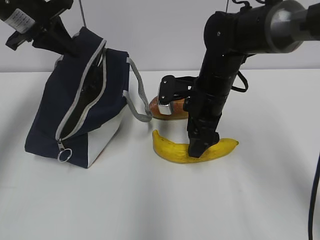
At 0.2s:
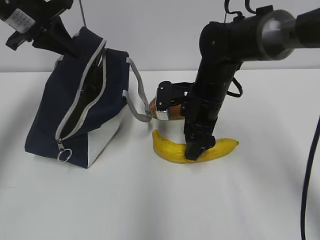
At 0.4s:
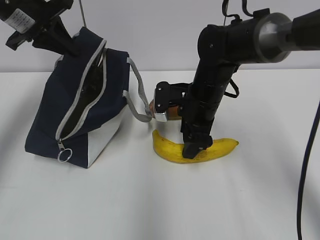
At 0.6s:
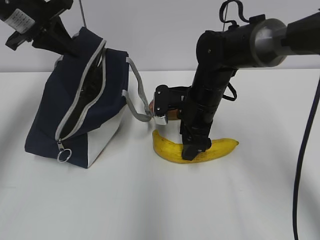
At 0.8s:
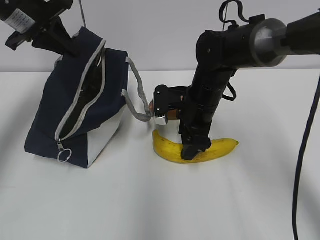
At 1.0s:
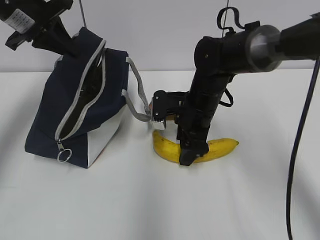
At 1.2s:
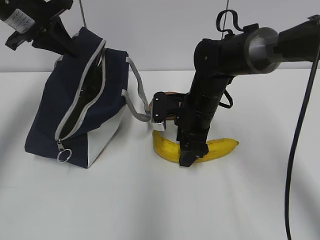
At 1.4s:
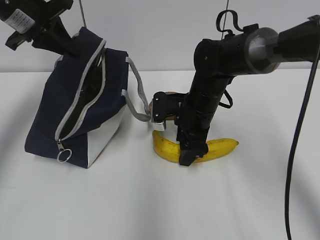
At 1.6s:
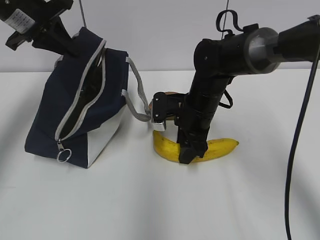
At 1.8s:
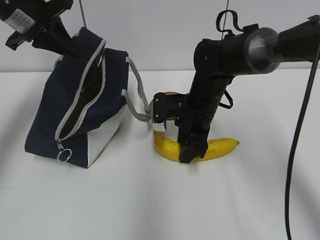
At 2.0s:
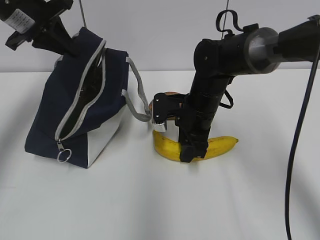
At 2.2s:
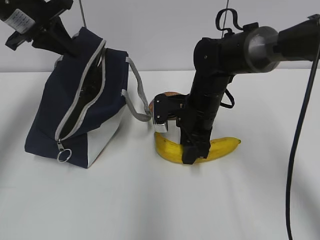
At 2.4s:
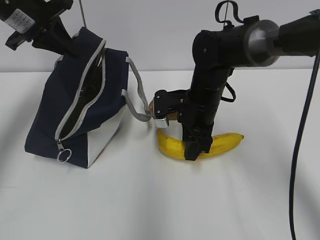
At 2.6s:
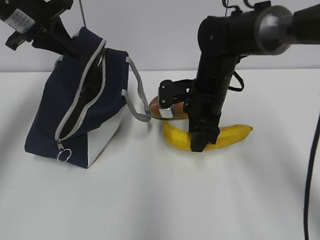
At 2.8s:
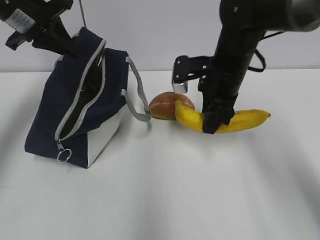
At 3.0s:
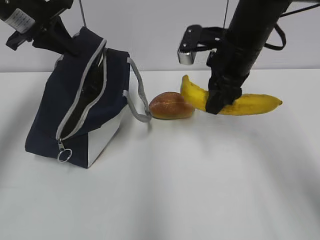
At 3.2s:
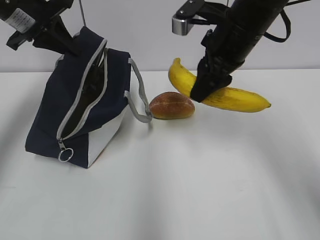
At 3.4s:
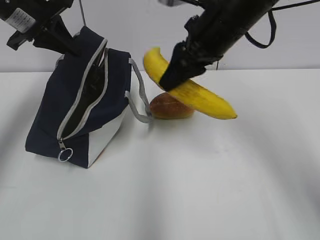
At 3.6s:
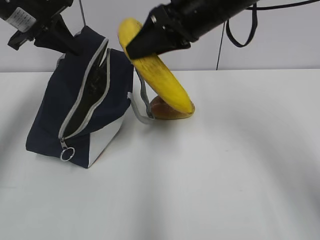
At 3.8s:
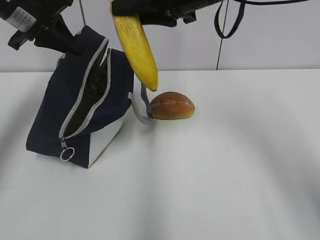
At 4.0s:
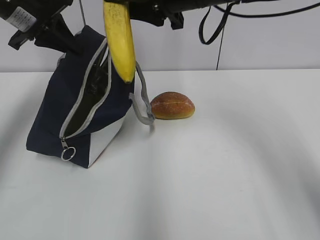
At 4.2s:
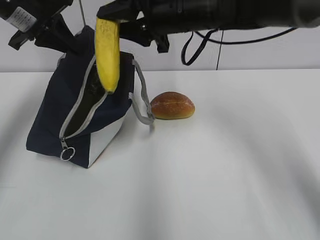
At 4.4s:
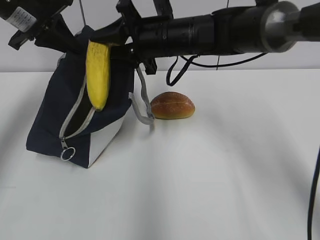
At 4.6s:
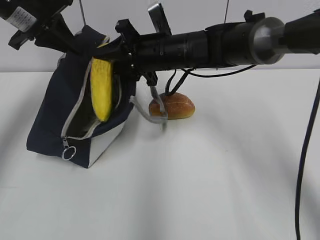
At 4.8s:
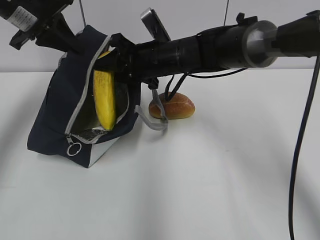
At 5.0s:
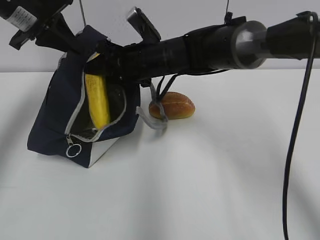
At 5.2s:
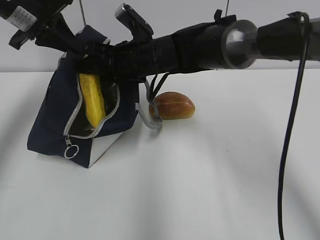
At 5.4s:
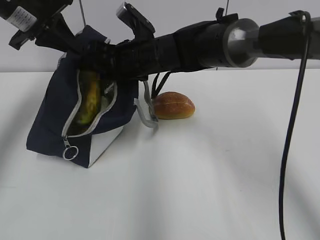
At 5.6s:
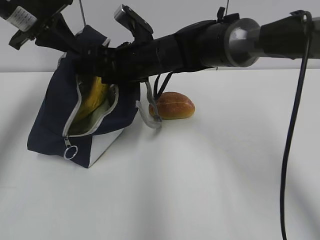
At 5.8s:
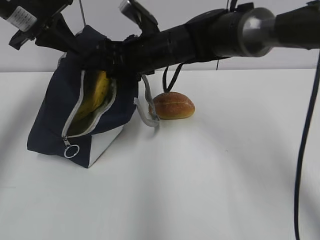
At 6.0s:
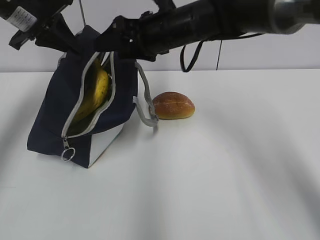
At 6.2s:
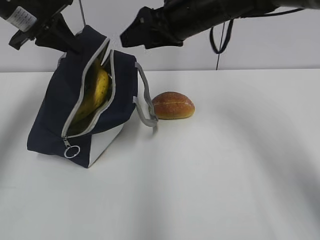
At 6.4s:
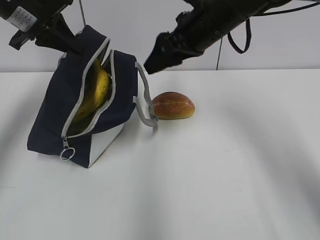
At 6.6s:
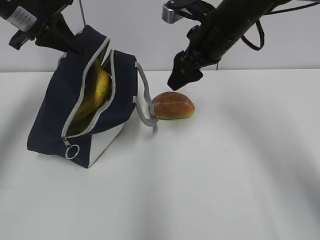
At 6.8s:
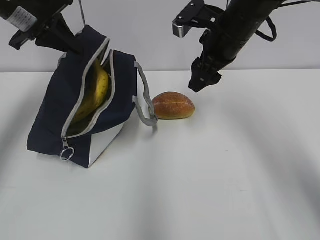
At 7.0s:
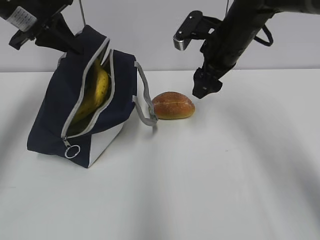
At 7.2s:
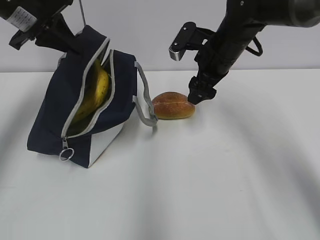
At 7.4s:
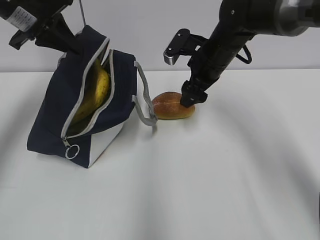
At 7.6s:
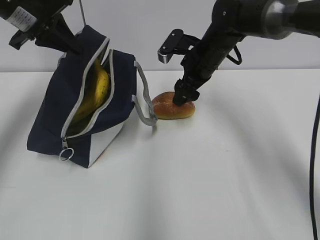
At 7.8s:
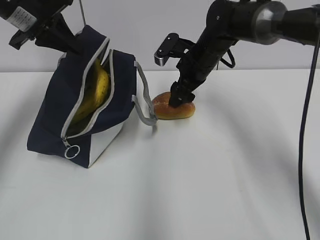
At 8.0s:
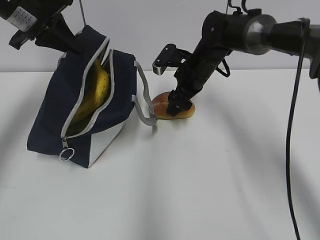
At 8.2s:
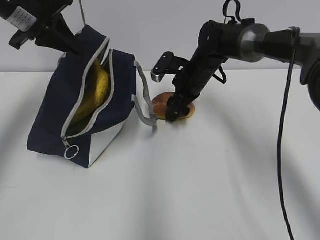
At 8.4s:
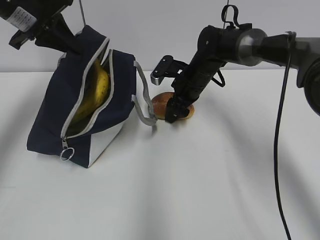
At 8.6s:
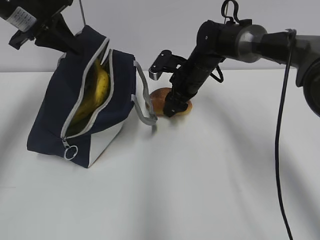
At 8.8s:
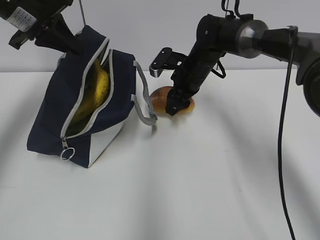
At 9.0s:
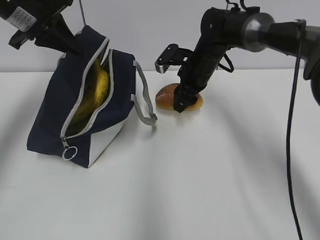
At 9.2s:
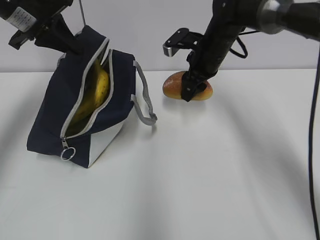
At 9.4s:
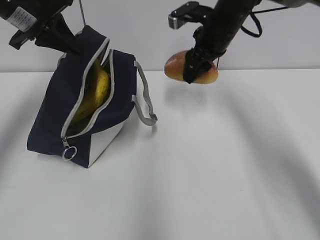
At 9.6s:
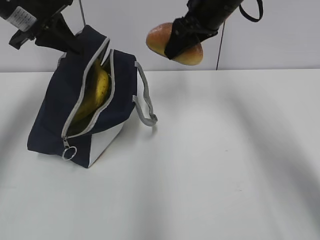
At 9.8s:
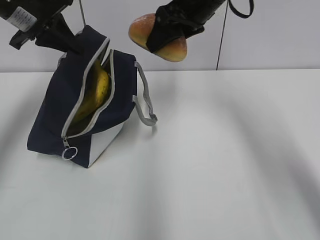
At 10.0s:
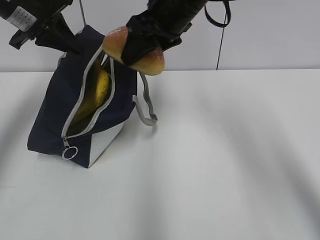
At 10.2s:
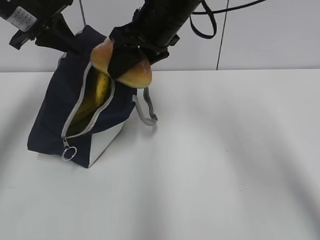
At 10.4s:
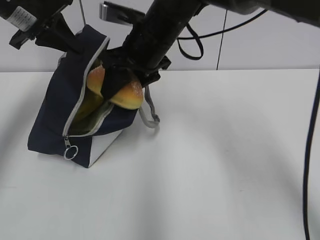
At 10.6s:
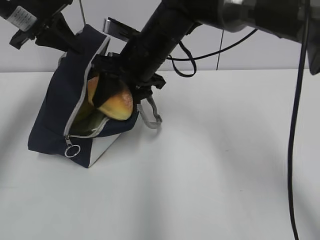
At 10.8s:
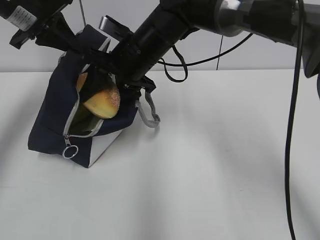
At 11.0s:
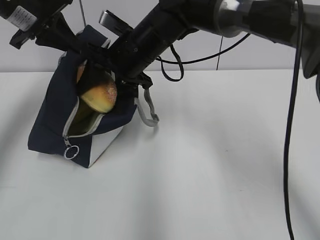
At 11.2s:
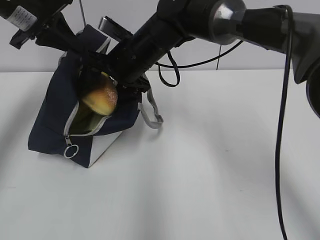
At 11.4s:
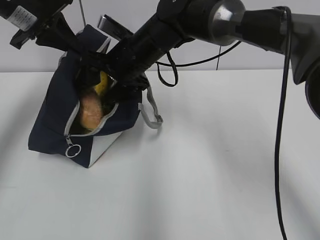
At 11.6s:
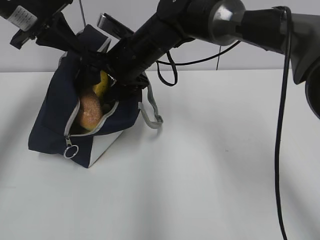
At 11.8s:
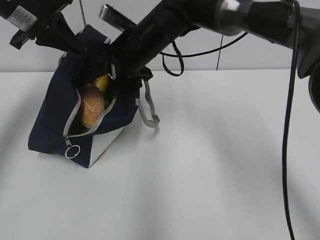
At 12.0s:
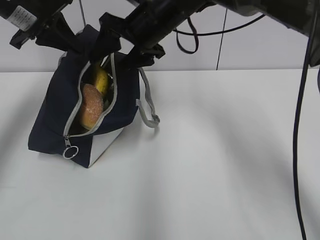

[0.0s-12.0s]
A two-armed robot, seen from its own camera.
Step, 0.0s to 2.0s: Grab the banana with your right hand.
Step, 2.2s to 5.6s: Place it into the bag with your right hand.
Step, 5.8s to 8.2s: Grab the bread with your right hand.
0.0s to 1.6s: The grippers move only a little.
1.6s to 3.0s: The right gripper shifts approximately 15 cm upward.
3.0s to 4.4s: The right gripper travels to the left by about 10 cm.
4.4s to 6.0s: The right gripper opens.
6.0s to 7.6s: The right gripper is displaced downward and to the right by approximately 10 cm.
9.0s to 10.4s: The right gripper moves to the left, upward and backward, approximately 15 cm.

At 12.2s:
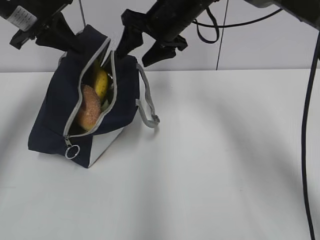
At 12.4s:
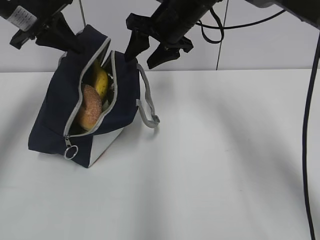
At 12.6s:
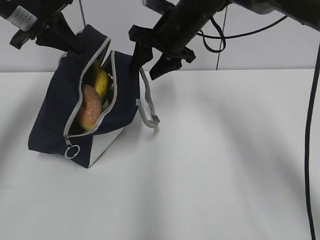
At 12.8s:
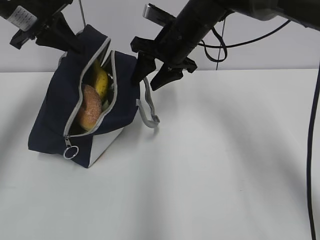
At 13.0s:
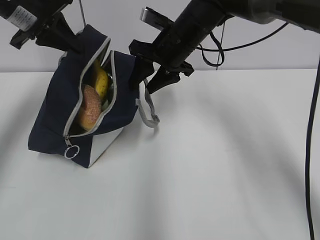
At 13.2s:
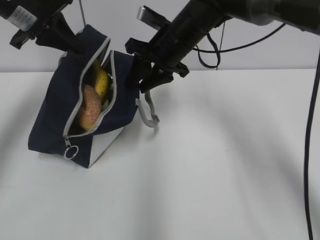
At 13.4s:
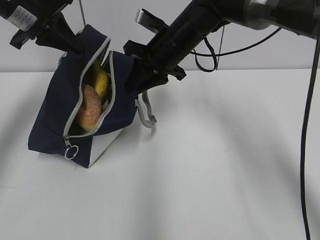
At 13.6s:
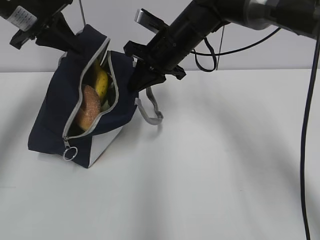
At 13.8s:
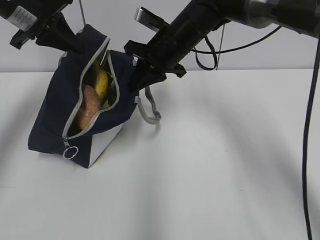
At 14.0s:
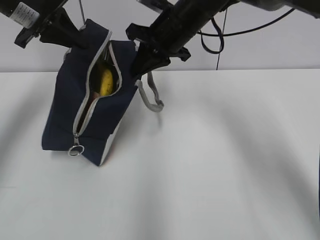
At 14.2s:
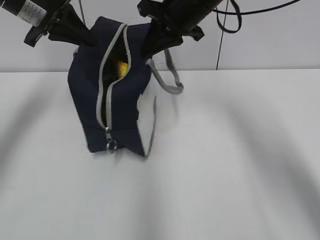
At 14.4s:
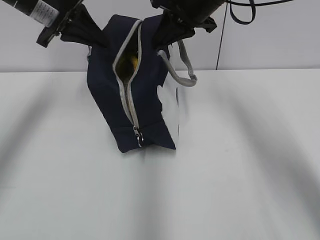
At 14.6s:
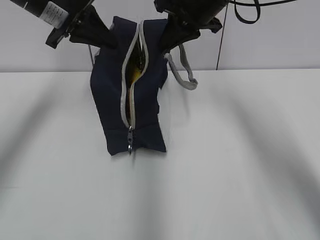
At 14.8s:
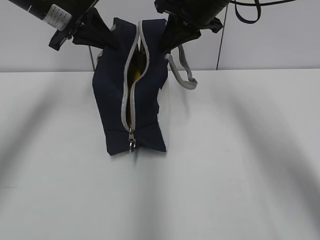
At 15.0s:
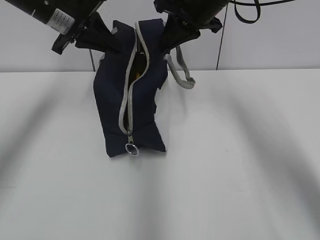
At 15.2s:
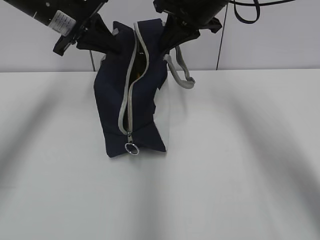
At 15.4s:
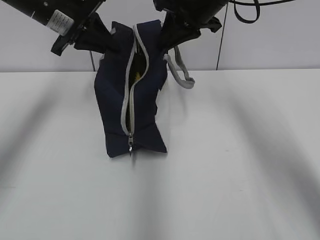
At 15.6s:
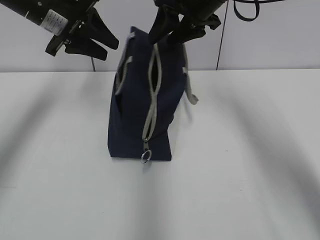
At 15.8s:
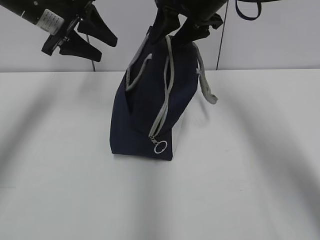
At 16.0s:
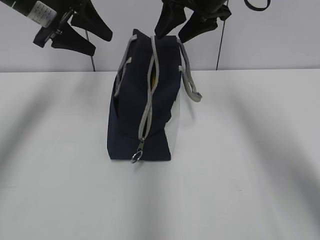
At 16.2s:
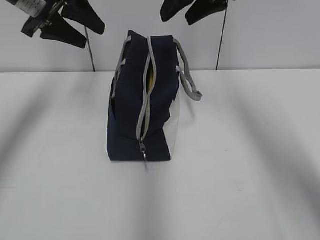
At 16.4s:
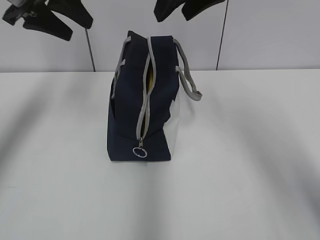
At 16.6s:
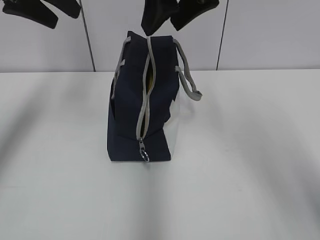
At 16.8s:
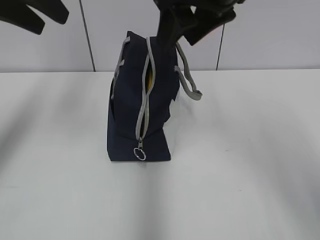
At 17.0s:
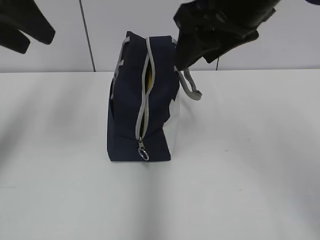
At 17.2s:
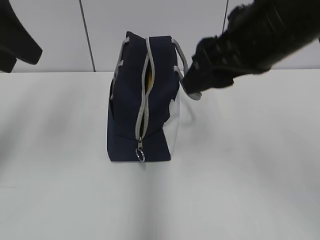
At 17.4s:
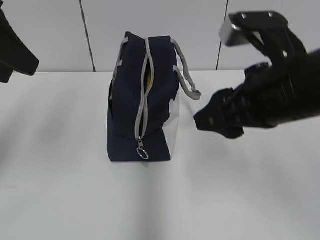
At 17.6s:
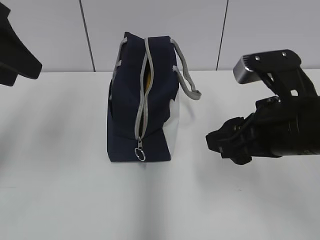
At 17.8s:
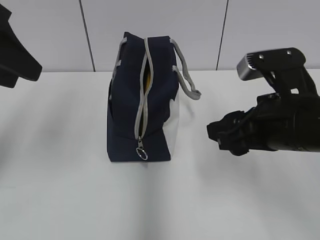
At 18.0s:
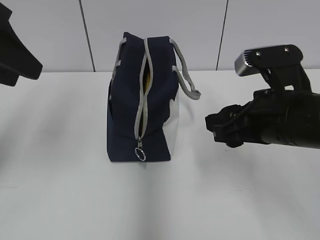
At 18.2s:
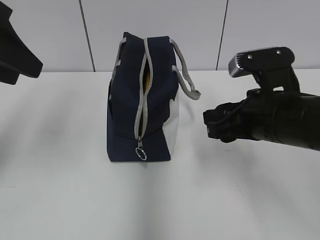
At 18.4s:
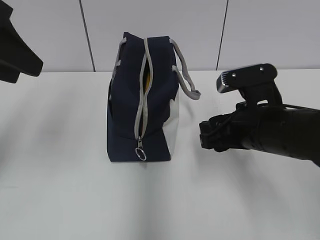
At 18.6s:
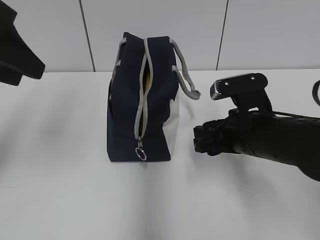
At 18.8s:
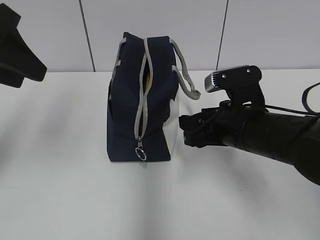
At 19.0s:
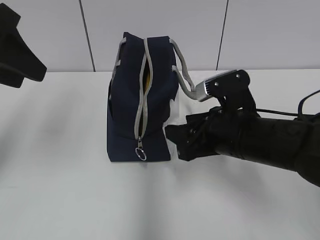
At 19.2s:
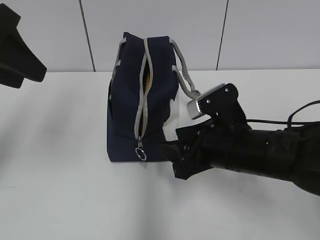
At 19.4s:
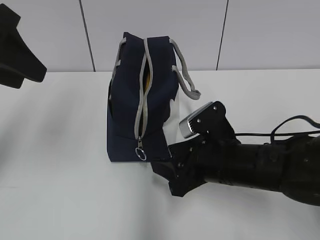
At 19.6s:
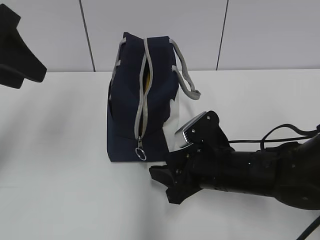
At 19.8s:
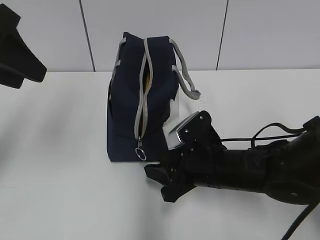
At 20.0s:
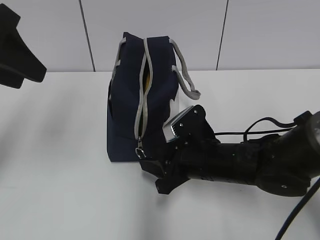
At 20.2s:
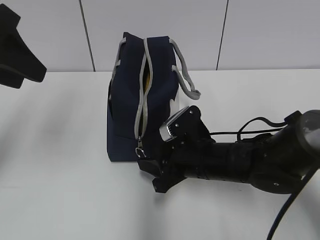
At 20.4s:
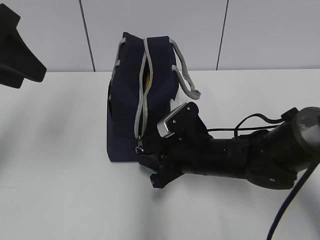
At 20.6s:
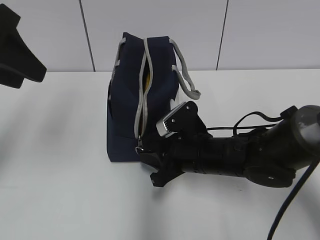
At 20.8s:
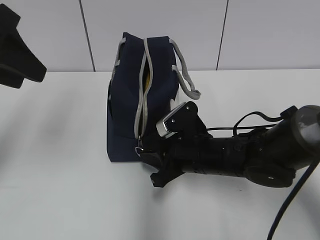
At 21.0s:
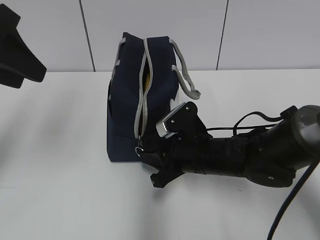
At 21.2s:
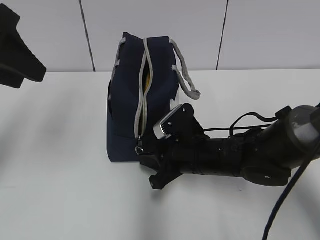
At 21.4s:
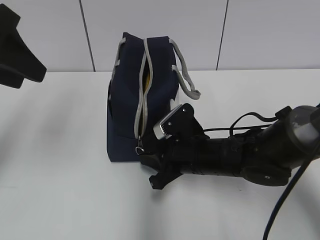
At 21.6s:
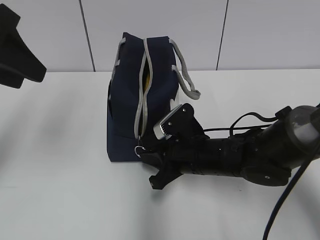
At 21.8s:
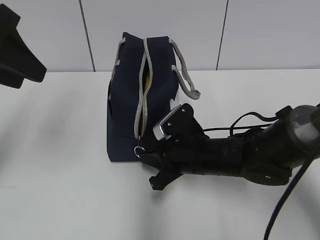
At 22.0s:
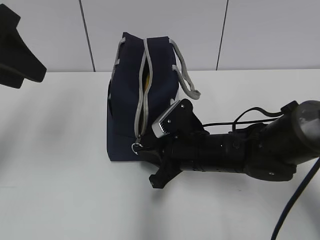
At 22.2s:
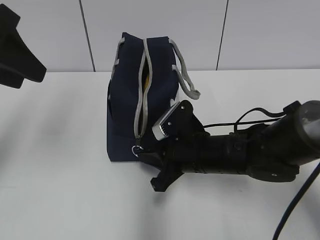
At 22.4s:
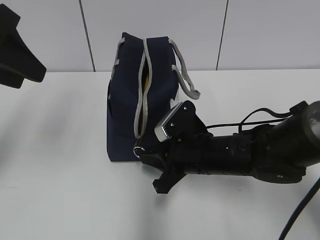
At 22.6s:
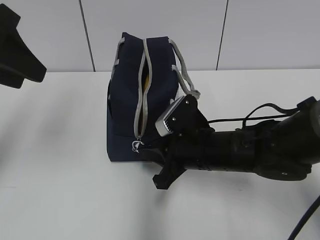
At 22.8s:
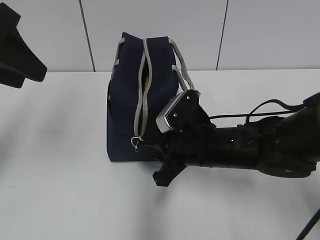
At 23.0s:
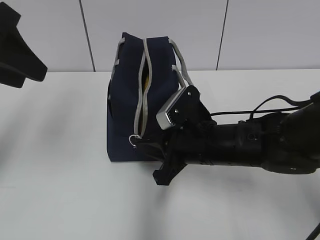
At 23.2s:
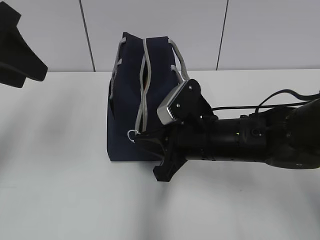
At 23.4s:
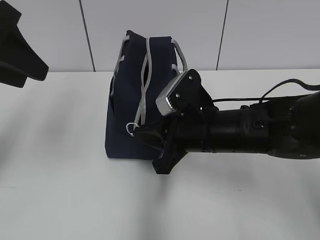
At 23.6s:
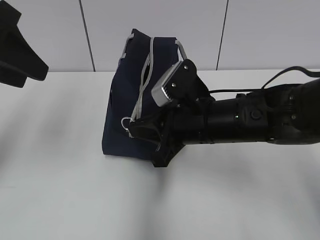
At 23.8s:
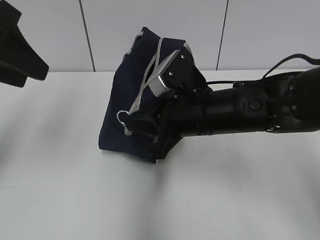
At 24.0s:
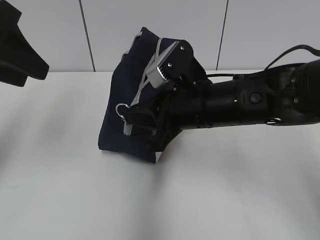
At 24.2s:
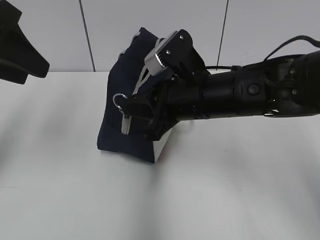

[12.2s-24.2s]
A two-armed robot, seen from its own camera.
Step, 13.8s to 15.4s: Move the lunch bag to the right.
12.2s to 13.8s: The right gripper closes its fingers.
13.8s to 15.2s: The left gripper goes approximately 5 cm to the right; the right gripper goes some 10 cm upward and to the right.
15.2s to 16.6s: The right gripper is displaced backward and upward by roughly 10 cm, and opens its fingers, while the left gripper moves upward and backward, roughly 10 cm, and opens.
16.6s to 18.2s: The left gripper shifts approximately 10 cm backward; the right gripper shifts roughly 20 cm downward and backward.
18.2s to 19.8s: The right gripper heads downward and to the left, covering about 10 cm.
19.8s to 22.6s: There are only small adjustments of the grippers.
22.6s to 24.2s: The right gripper goes about 10 cm upward.
